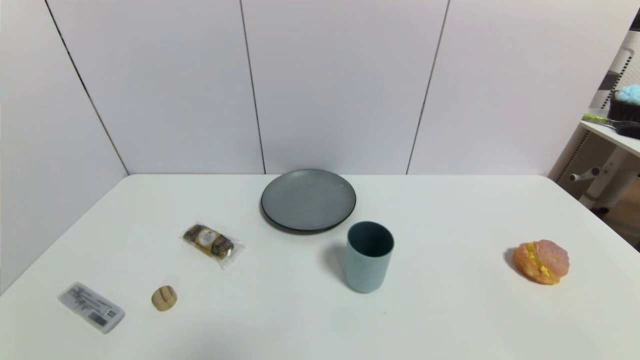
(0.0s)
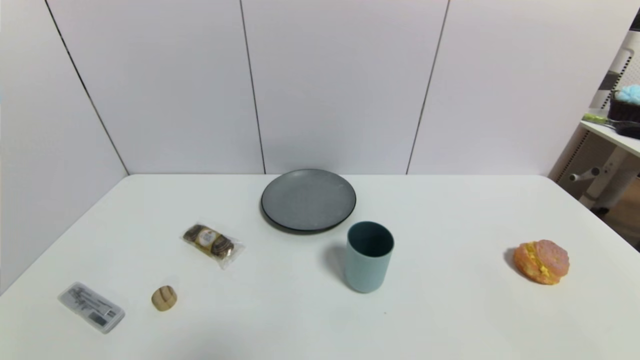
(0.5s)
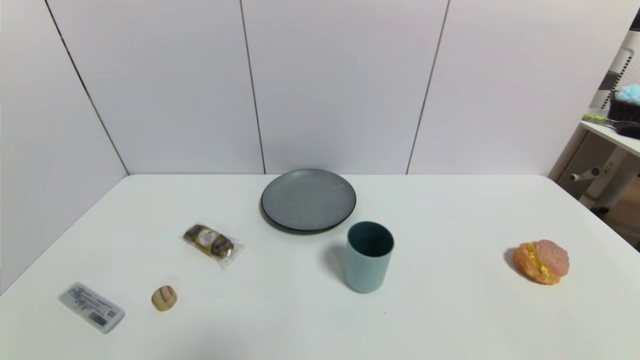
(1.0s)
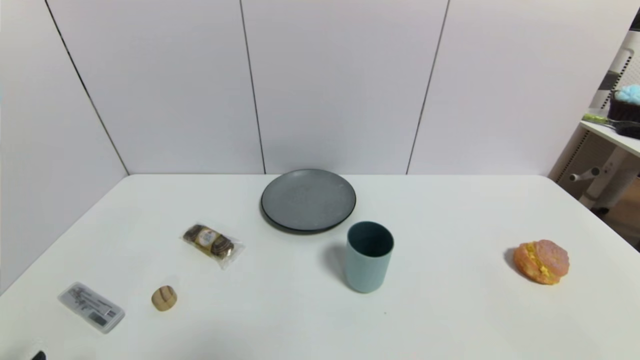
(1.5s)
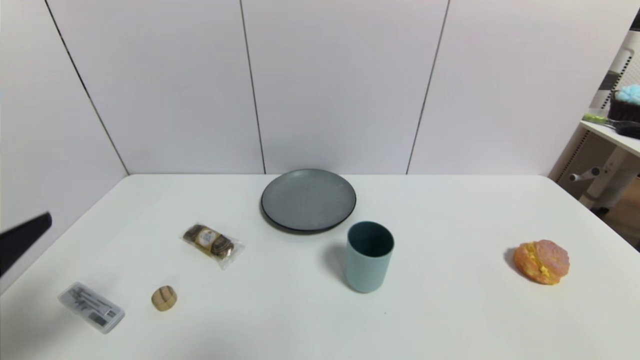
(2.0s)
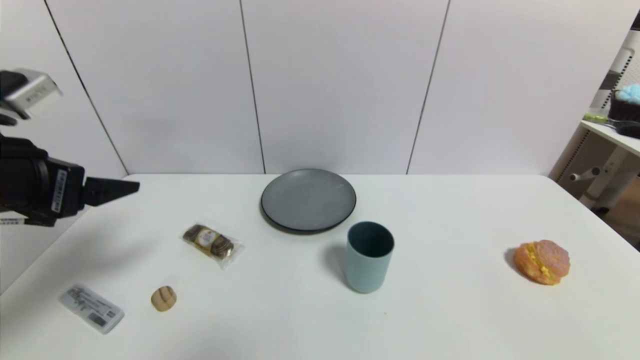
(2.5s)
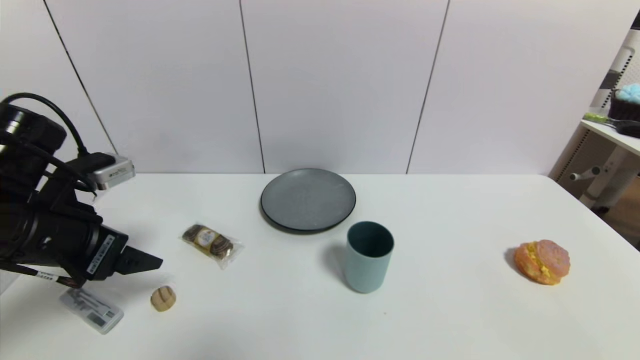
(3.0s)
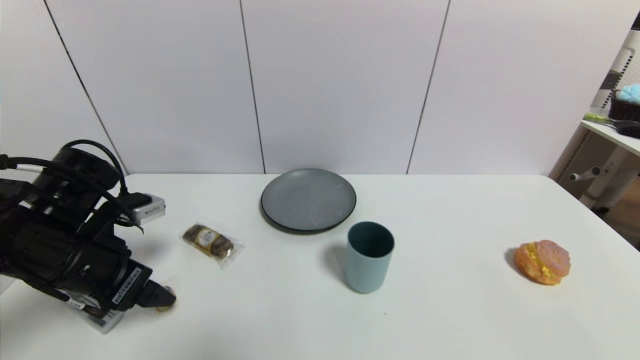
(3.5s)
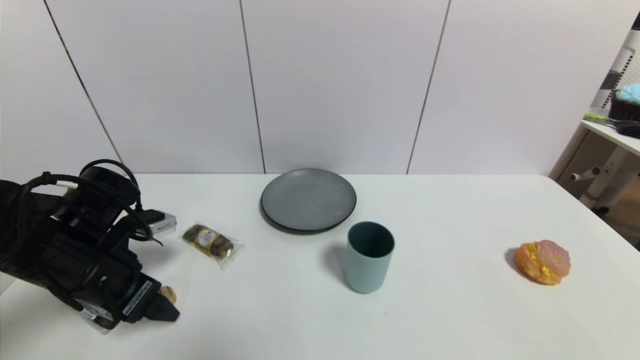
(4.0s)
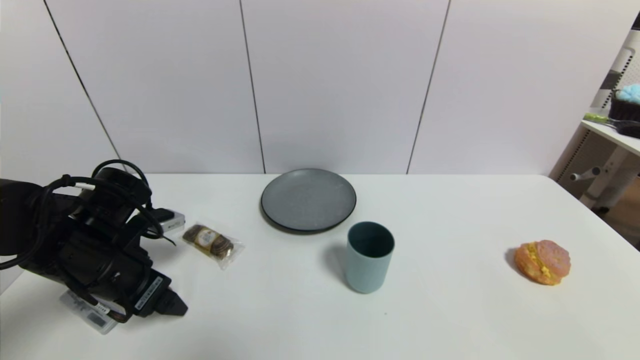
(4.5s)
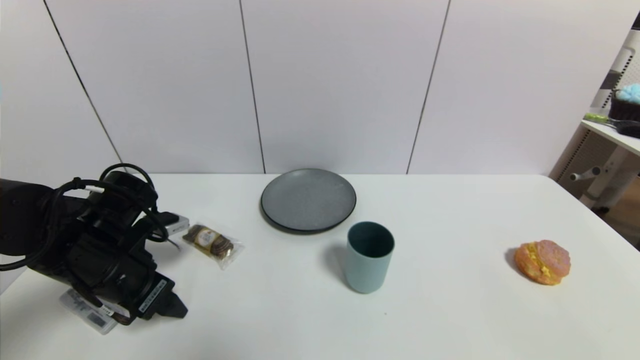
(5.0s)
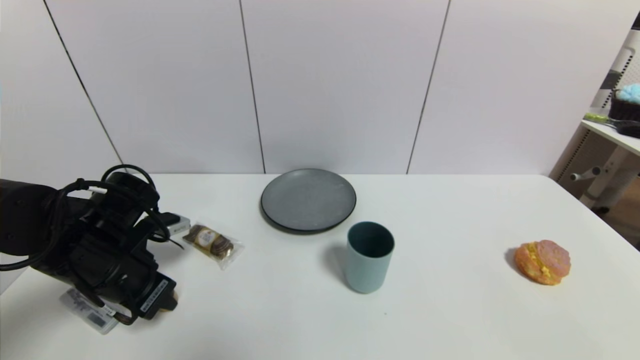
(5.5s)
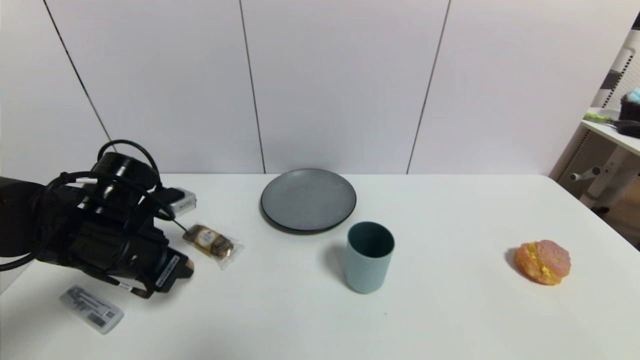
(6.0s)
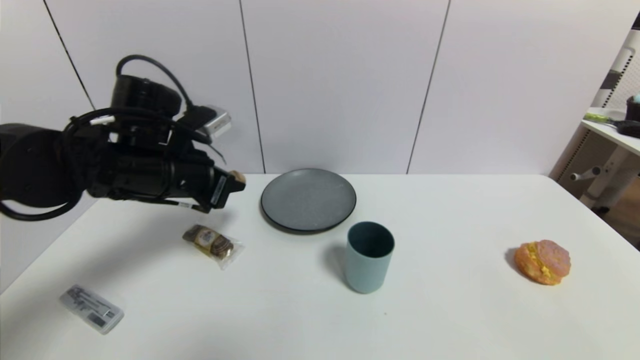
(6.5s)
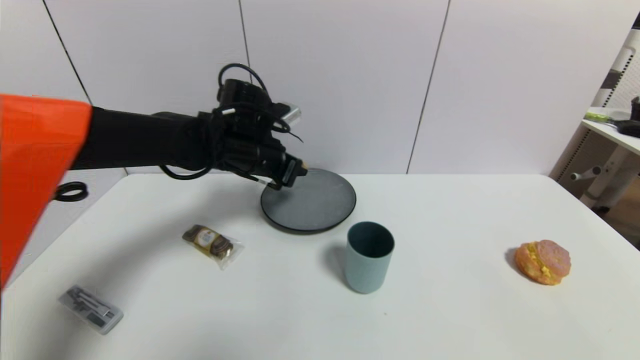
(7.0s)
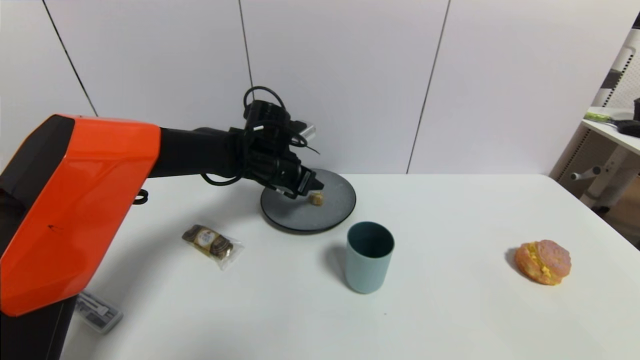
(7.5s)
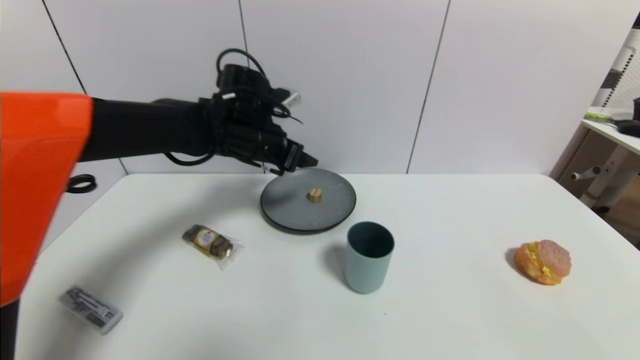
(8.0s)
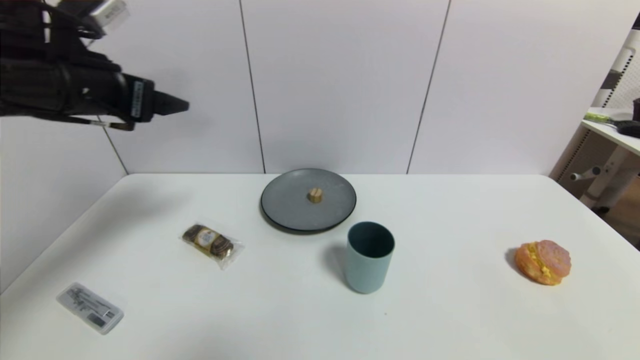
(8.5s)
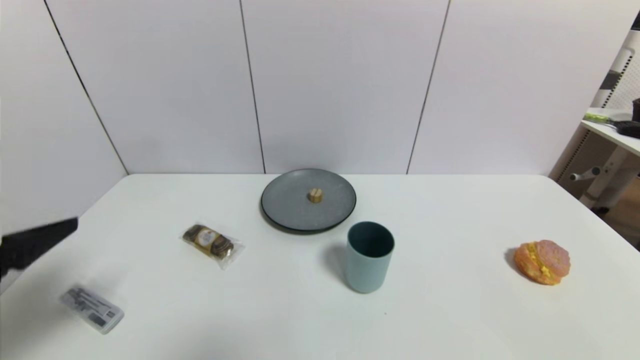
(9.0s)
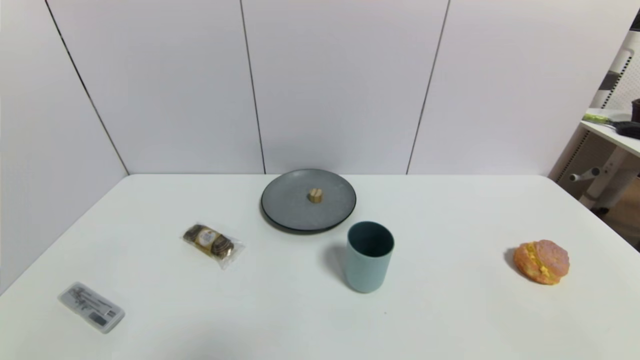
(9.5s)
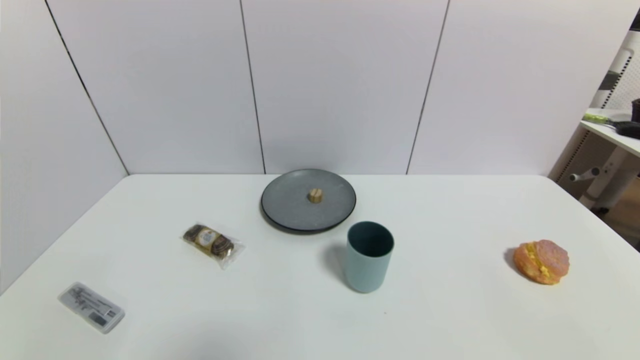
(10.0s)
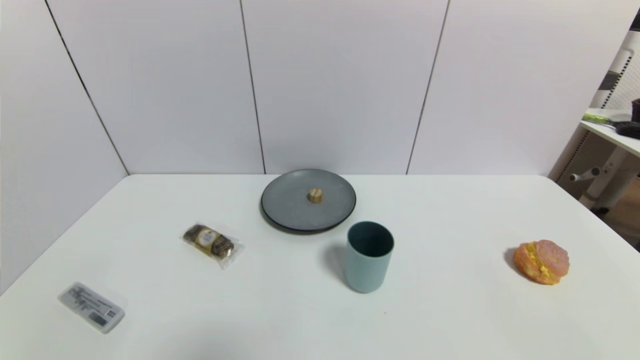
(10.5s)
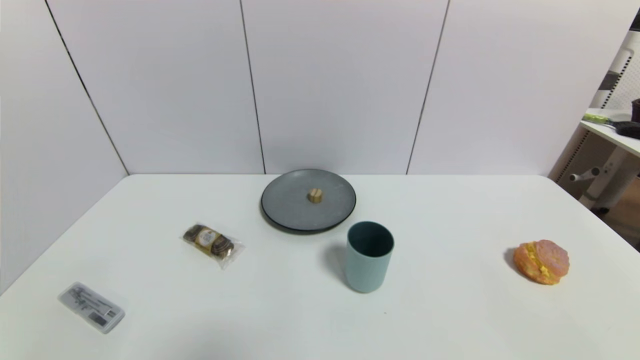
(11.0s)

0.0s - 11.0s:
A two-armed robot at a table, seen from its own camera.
Task of the whole recording: use a gripper to pick the target object and place on the gray plate.
Step, 0.0s - 5.5s: Grasp the round wooden block with the left gripper.
Step, 6.0s - 7.5s: Place the round wooden block on the gray plate with the left gripper.
0.0s - 2.0s: The left gripper shifts approximately 20 cm upward and forward.
2.0s - 3.5s: The left gripper heads forward and downward, covering some 15 cm.
3.5s - 5.5s: The left gripper closes.
5.5s - 7.5s: The left gripper travels forward and to the right by approximately 25 cm, and opens up.
7.5s - 9.0s: The left gripper travels backward and to the left by roughly 40 cm, and opens up.
9.0s - 11.0s: The left gripper is displaced downward and backward by some 20 cm.

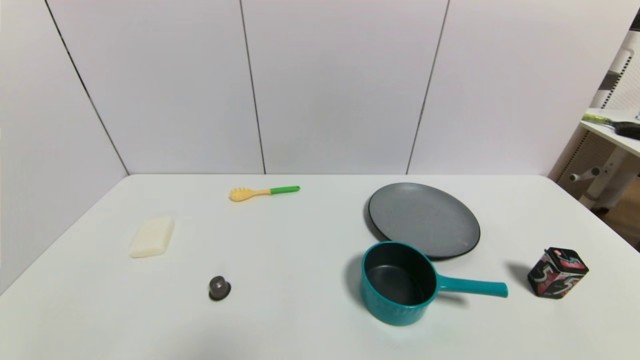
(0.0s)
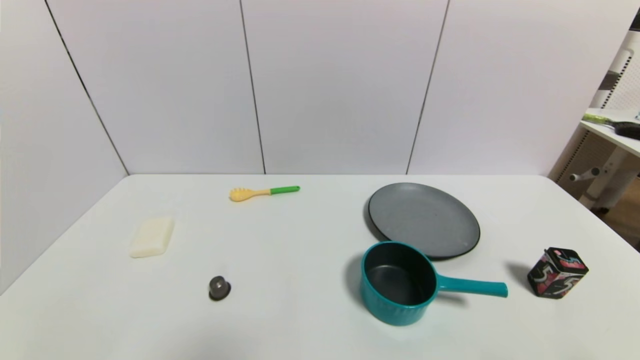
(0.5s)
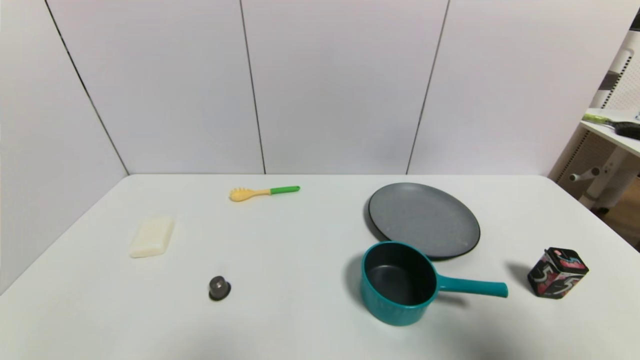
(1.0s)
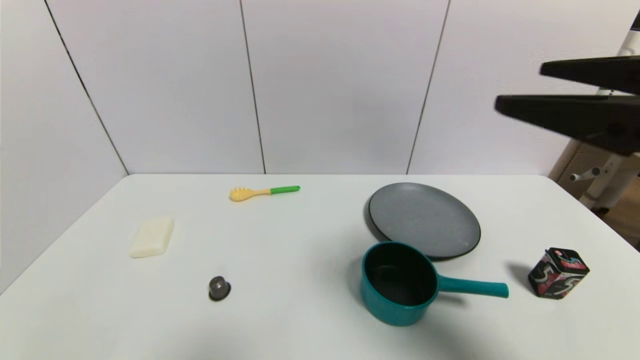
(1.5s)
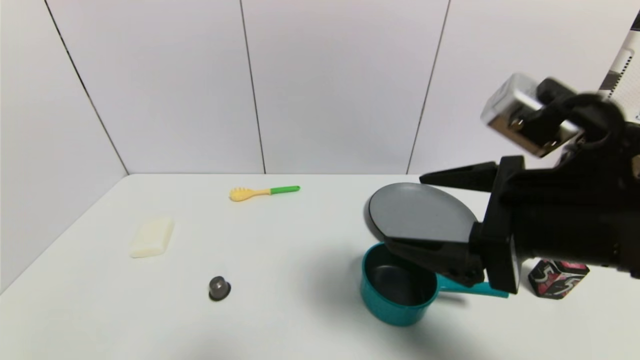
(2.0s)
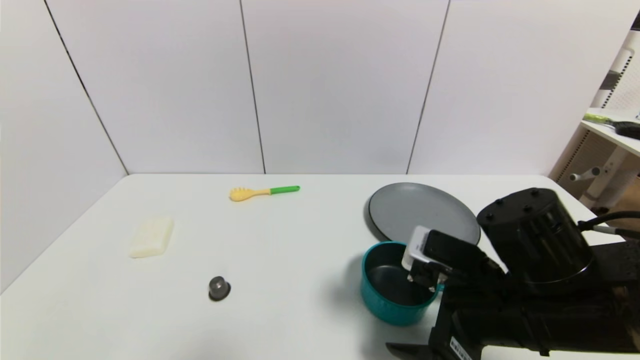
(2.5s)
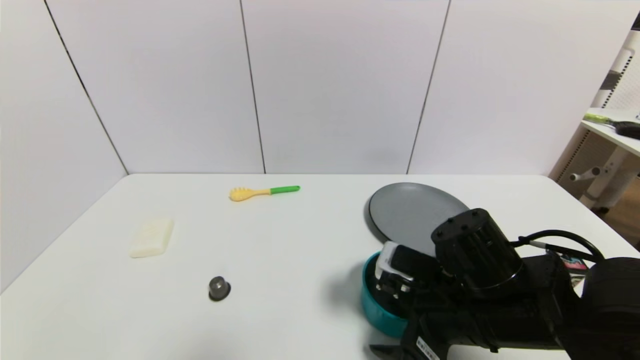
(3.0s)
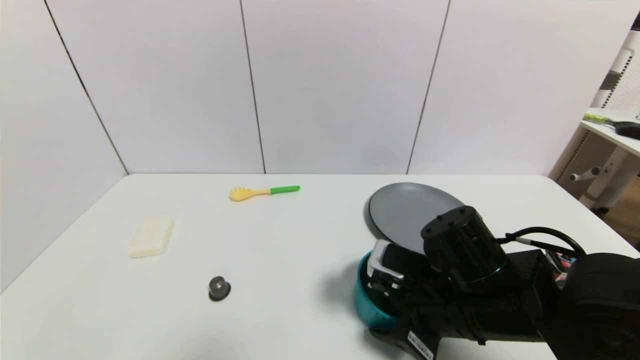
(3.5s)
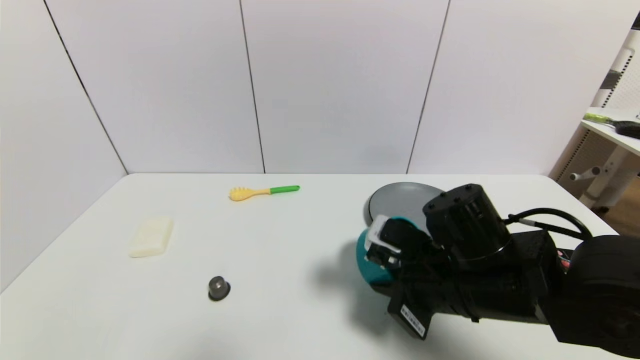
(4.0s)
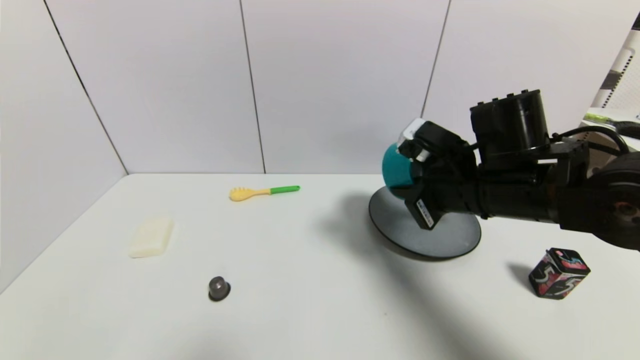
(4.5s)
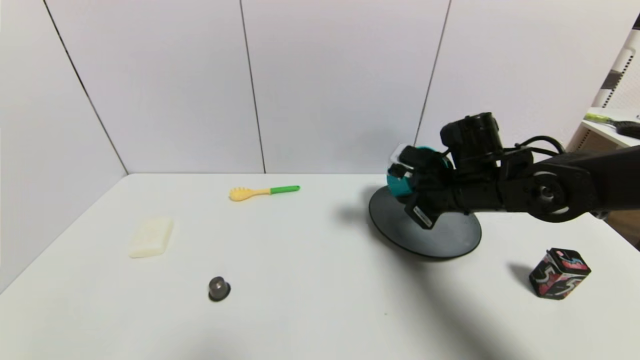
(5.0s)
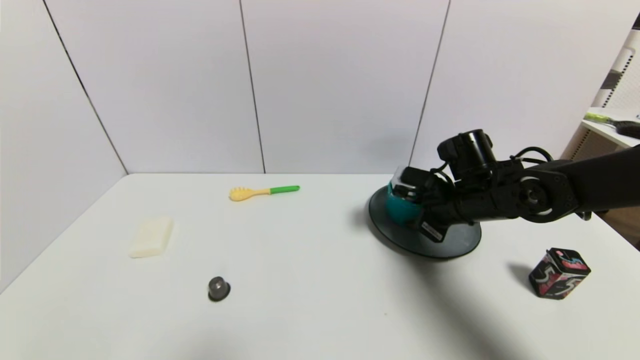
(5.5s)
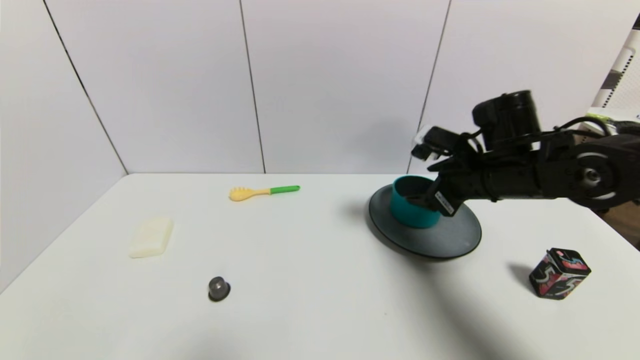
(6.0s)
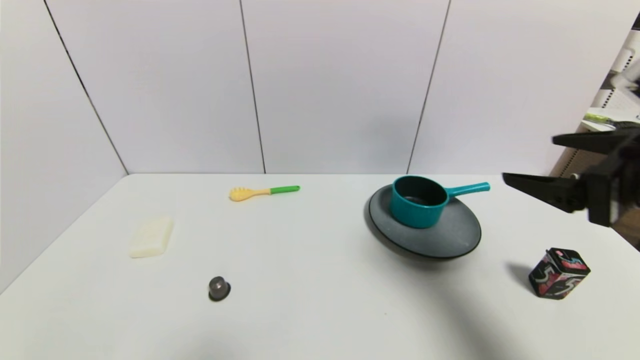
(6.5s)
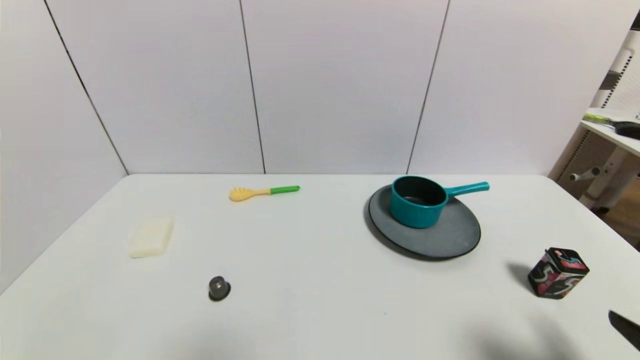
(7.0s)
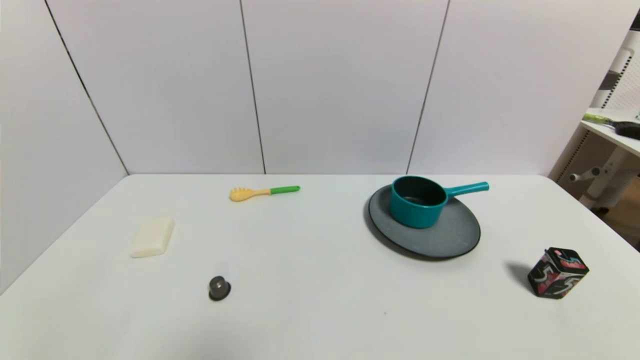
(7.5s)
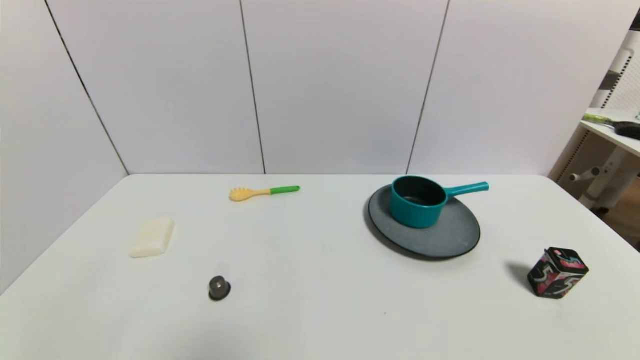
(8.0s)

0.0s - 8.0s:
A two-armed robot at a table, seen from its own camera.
Task of the whole recording: use a gripper to pick the target object and place on the gray plate.
Step, 0.0s - 3.5s: Grasp the blue pot with the right gripper.
Step, 4.0s - 5.5s: Place the blue pot on the gray plate with the right gripper.
0.0s - 2.0s: The right gripper heads upward, forward and to the left, covering roughly 30 cm.
2.0s - 4.0s: The right gripper shifts roughly 15 cm downward and forward, and closes.
4.0s - 6.0s: The right gripper heads forward, to the right and upward, covering approximately 15 cm, and opens its fingers.
6.0s - 8.0s: The right gripper moves backward, approximately 35 cm.
